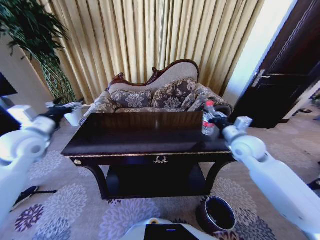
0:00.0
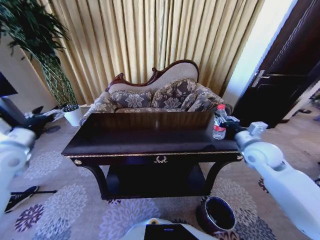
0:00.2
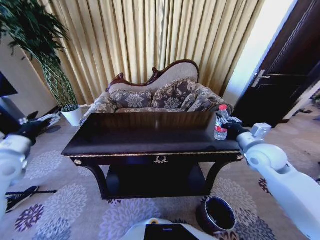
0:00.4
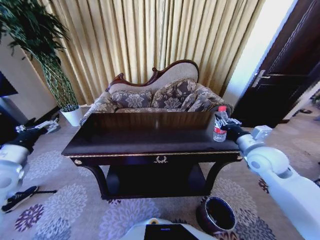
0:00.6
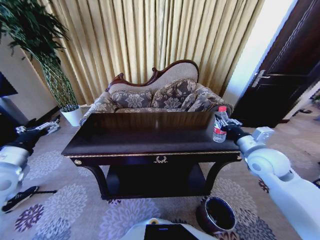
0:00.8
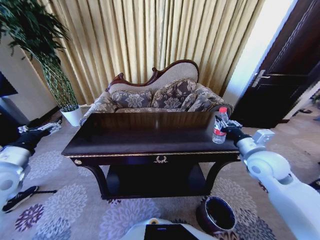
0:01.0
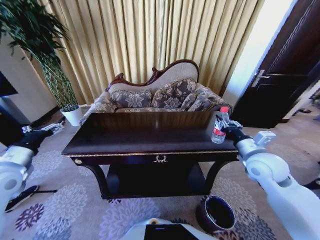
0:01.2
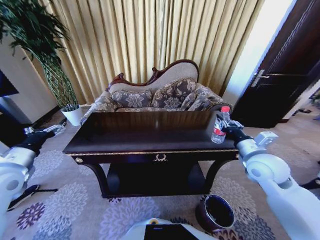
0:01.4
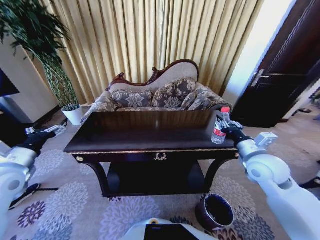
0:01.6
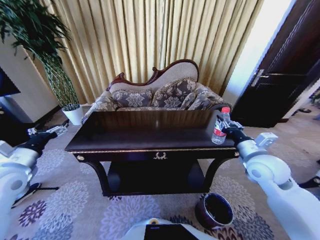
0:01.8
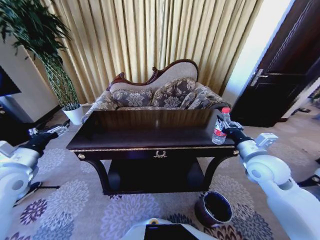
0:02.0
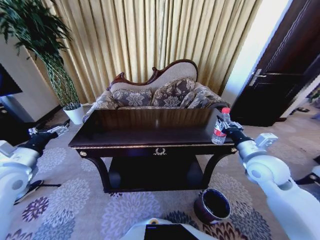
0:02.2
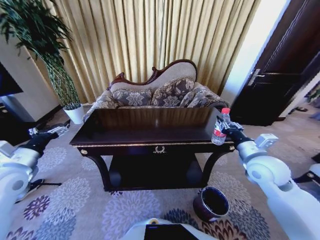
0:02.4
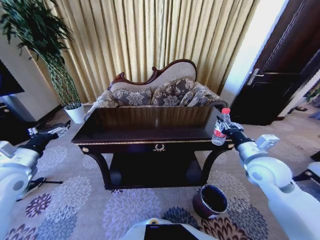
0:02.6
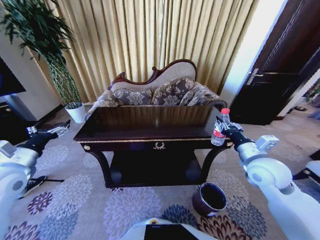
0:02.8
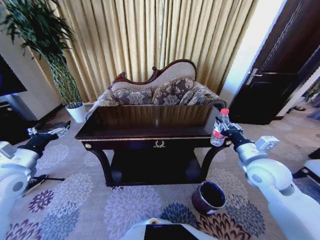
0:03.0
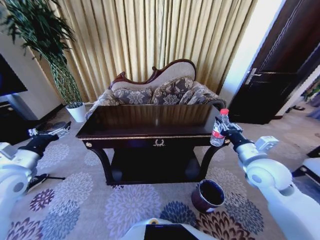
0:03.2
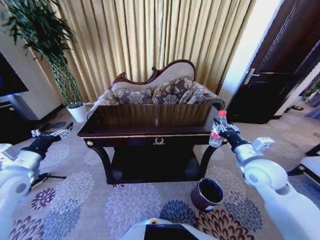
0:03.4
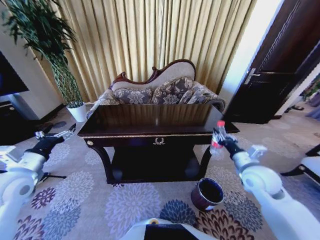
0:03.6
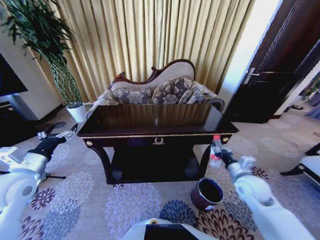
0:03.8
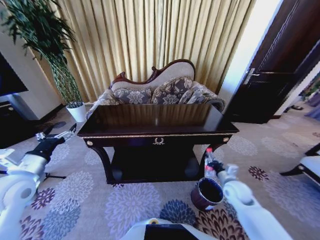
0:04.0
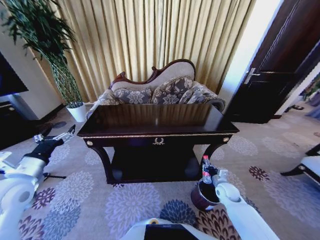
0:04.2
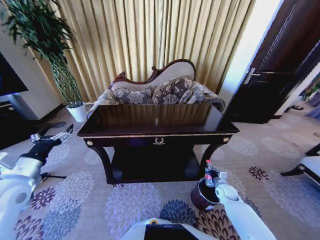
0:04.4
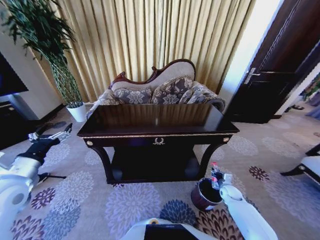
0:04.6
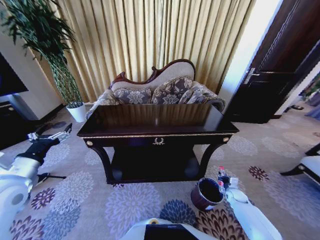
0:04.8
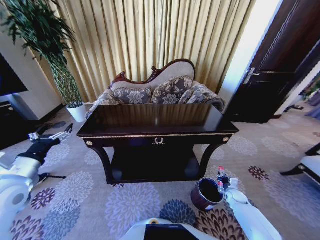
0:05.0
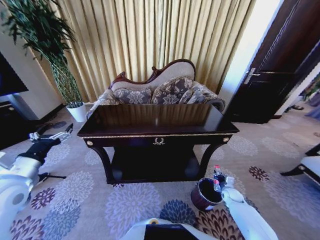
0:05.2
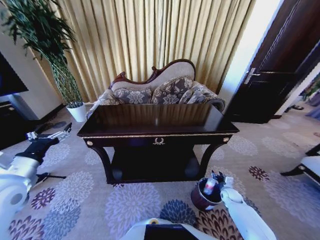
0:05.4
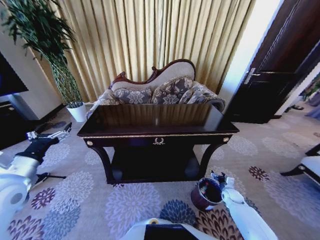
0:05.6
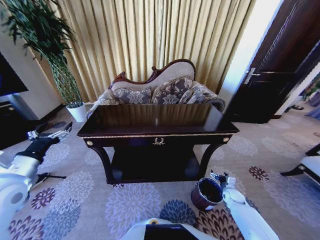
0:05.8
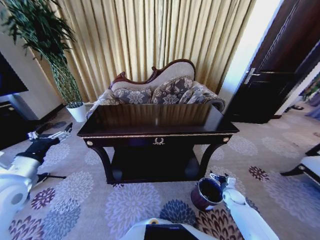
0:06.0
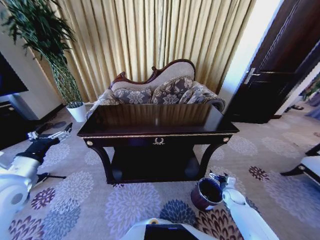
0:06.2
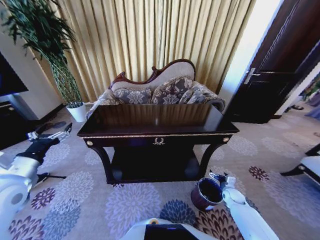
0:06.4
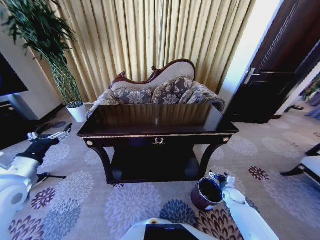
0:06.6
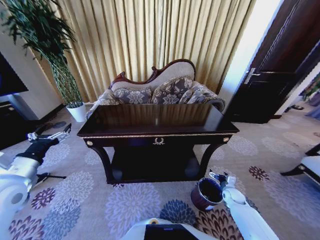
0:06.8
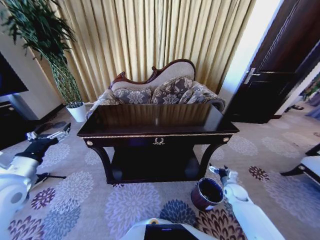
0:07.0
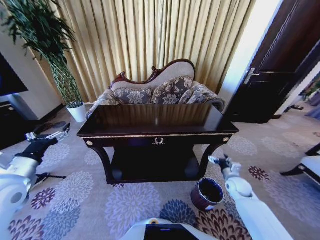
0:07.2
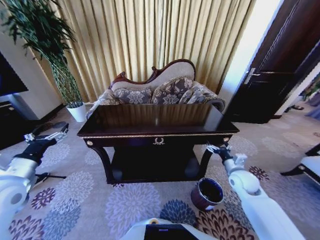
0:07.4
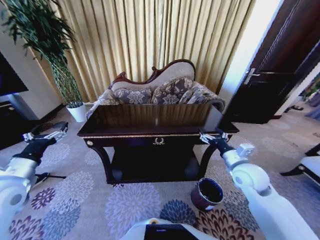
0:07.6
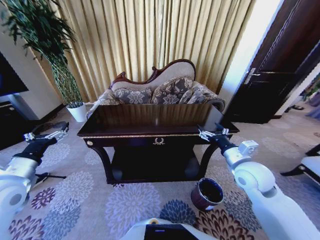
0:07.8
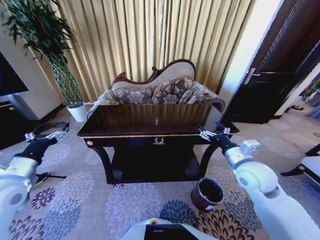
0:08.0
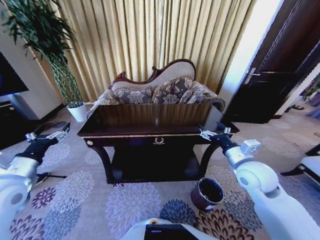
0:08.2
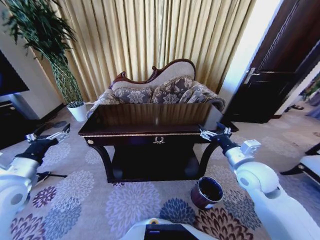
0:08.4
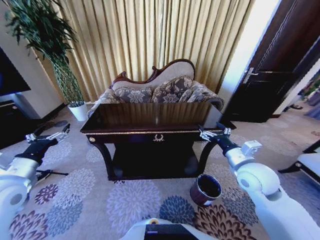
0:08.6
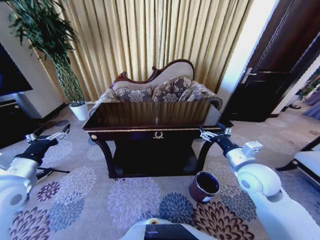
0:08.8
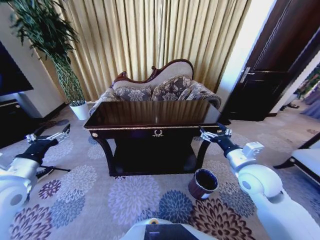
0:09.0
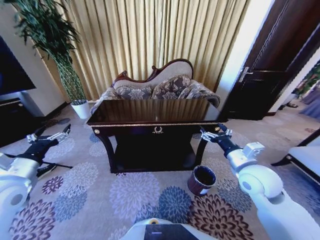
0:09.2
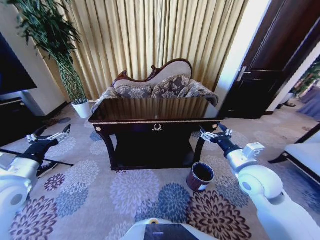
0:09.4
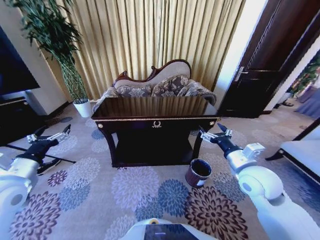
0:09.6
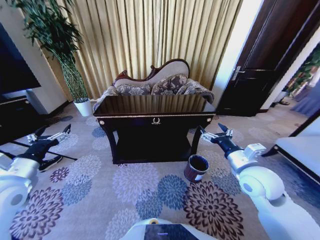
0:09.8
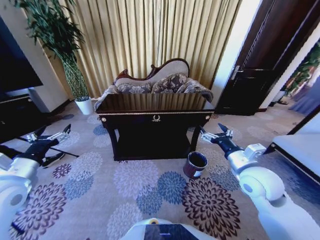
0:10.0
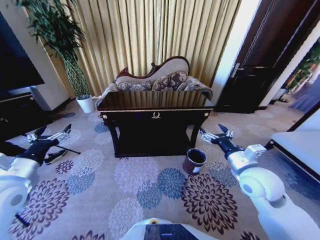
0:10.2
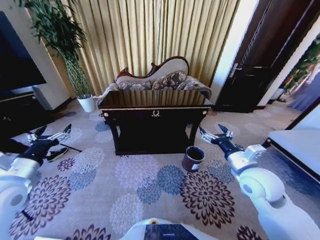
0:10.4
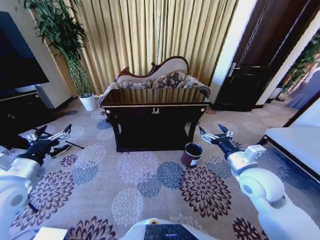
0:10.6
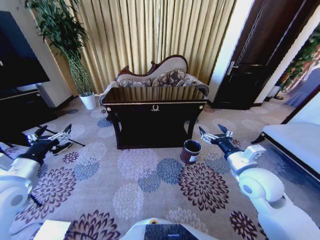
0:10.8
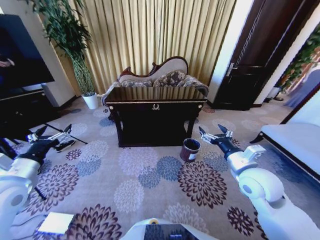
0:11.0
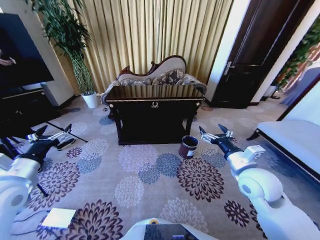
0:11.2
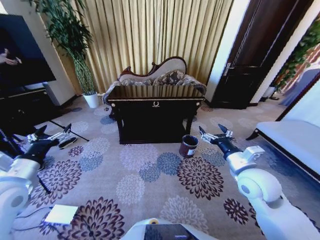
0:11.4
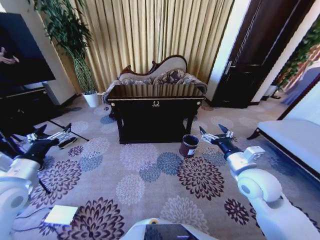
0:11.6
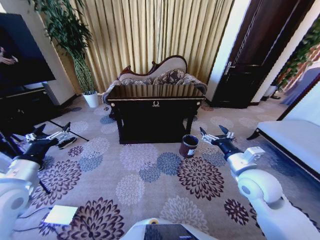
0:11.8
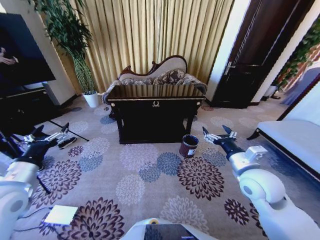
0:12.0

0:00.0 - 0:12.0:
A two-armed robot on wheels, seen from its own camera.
Task of the whole recording: Move to the front of the table and place the trash on the table into the trash bin.
0:00.0 - 0:01.6: The left gripper heads backward and downward, covering some 10 cm, while the right gripper moves backward, some 10 cm.
0:03.0 - 0:04.4: The right gripper heads downward, covering approximately 30 cm.
0:04.4 - 0:06.0: The right gripper moves to the right, roughly 5 cm, and opens.
0:06.0 - 0:07.6: The right gripper shifts approximately 30 cm upward.
0:07.6 - 0:09.0: The right gripper shifts by about 5 cm.

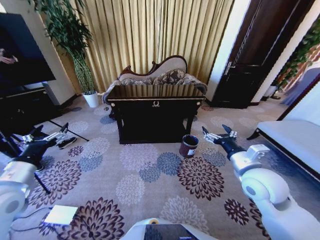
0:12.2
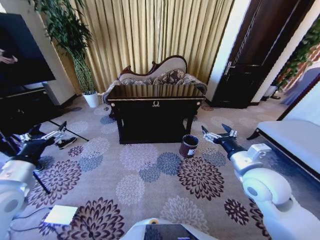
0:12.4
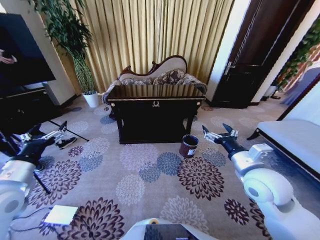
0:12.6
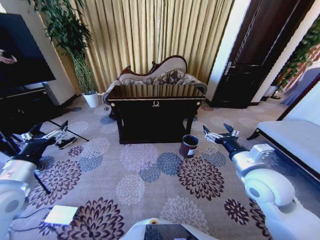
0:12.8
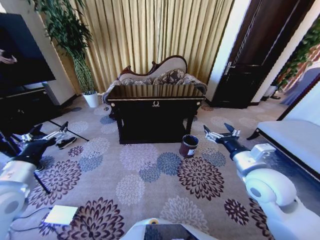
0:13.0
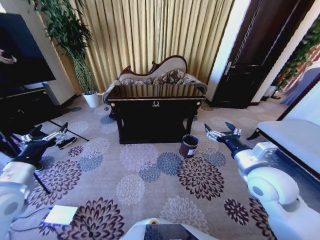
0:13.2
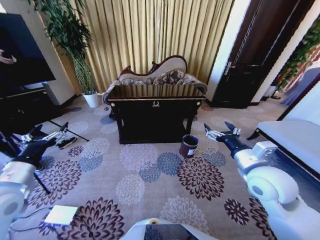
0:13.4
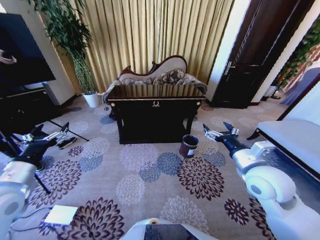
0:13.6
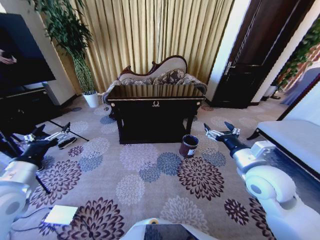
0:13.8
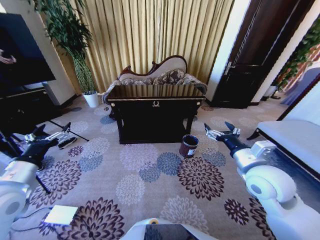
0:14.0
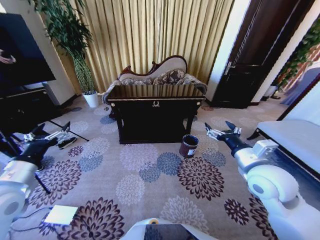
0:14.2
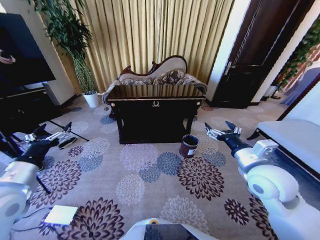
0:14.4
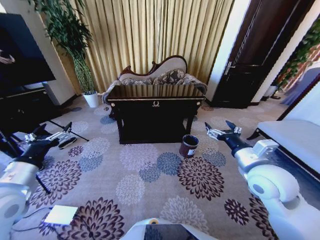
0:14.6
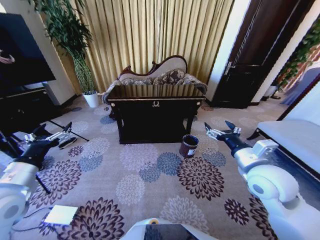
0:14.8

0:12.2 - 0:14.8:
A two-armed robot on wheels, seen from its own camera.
Task of the whole recording: Move to the front of the table and place the trash on the table into the trash bin.
0:12.2 - 0:14.8: The grippers move only a little.
